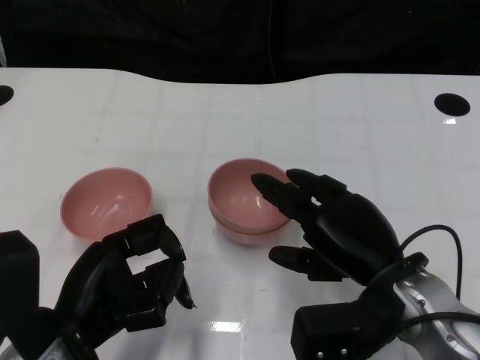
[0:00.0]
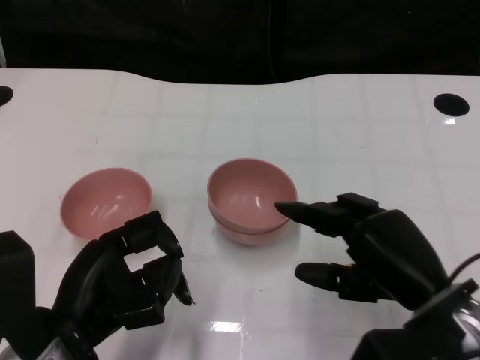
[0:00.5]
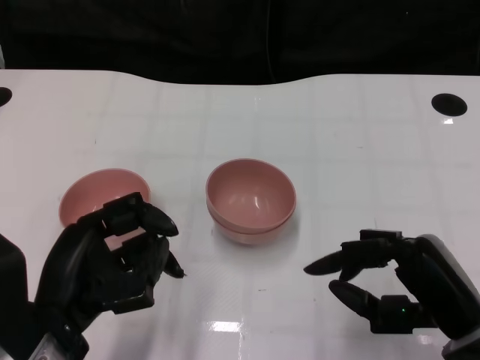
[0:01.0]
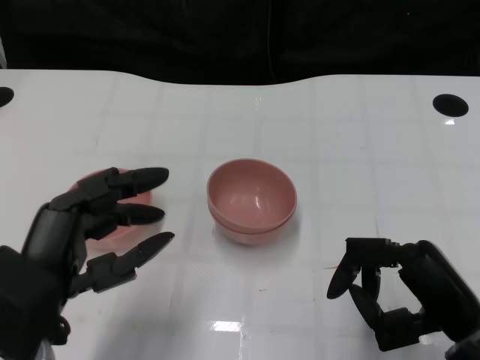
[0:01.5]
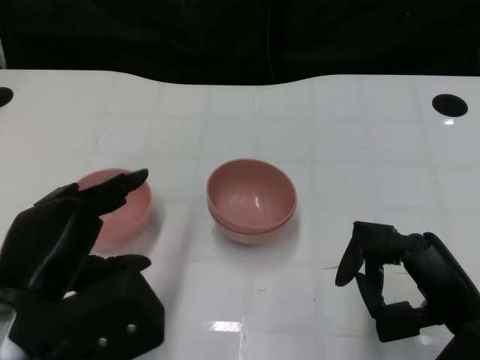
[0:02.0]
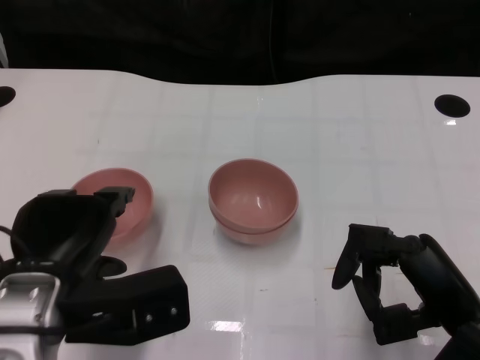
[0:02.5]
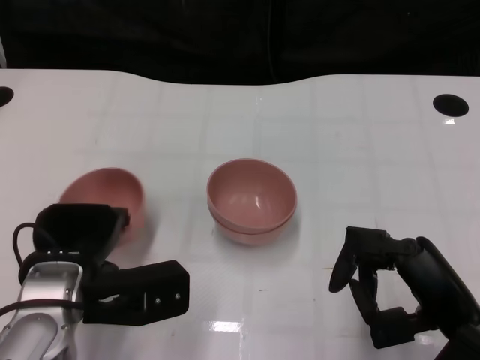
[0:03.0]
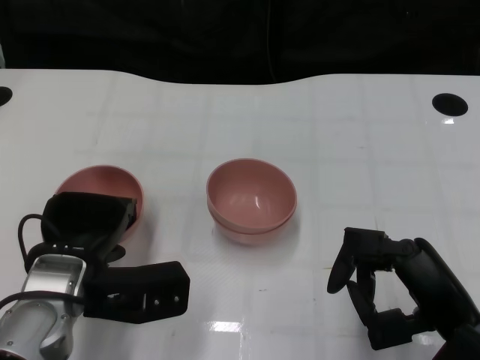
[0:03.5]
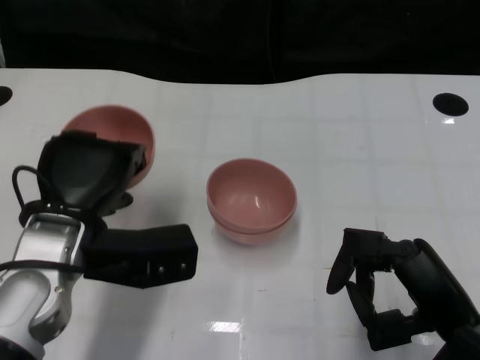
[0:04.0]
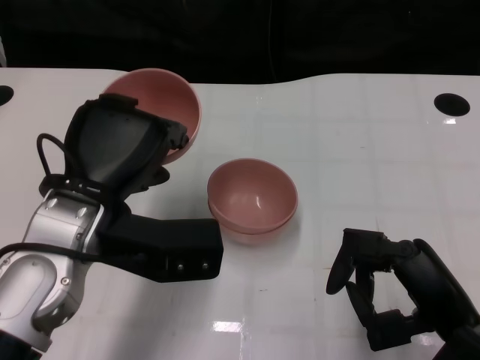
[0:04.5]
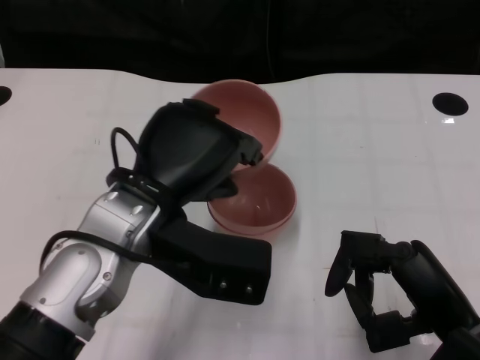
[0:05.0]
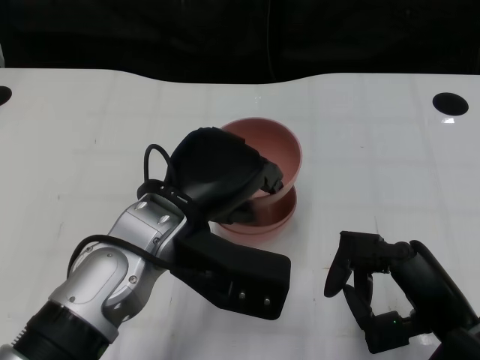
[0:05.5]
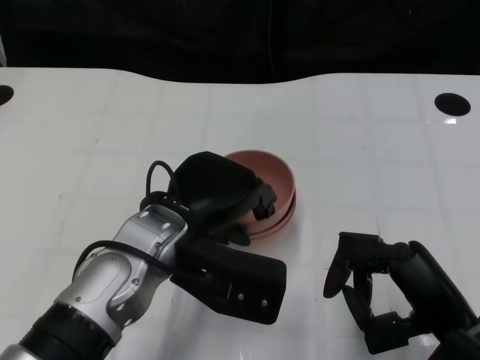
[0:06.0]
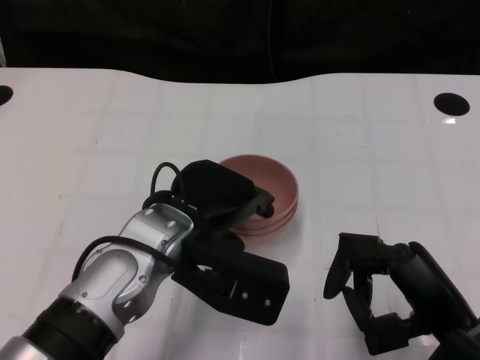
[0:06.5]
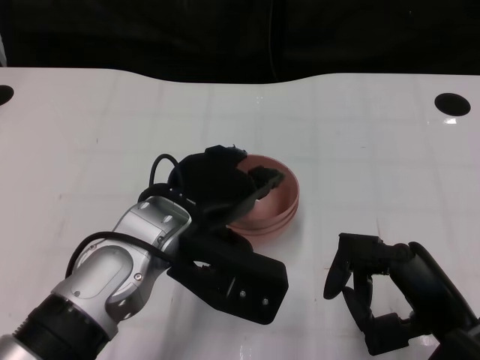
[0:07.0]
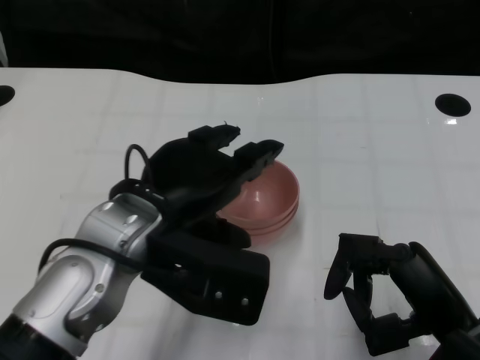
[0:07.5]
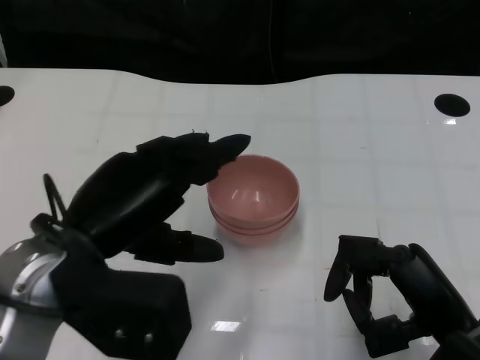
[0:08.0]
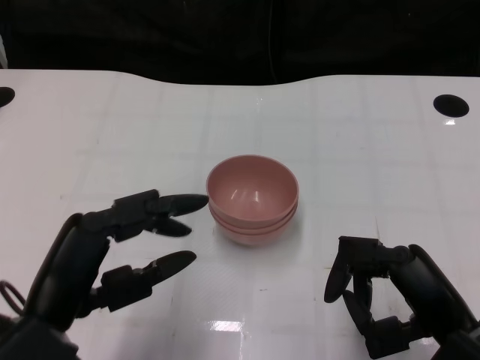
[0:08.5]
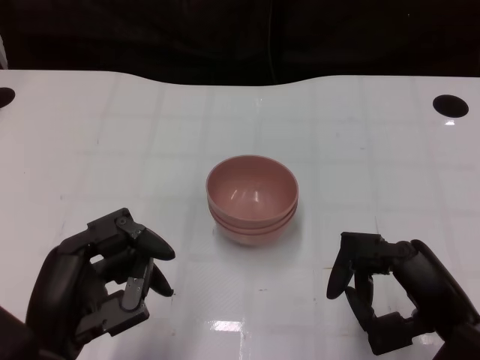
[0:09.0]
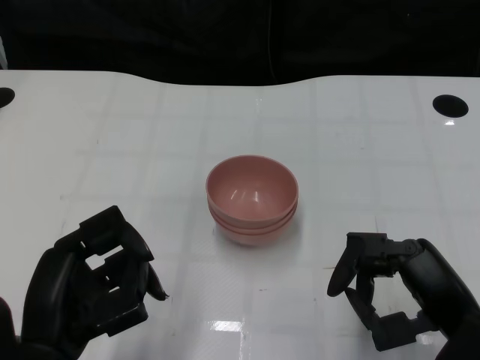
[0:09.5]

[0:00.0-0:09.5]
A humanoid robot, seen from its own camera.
Task of the whole recording: Pick up the bowl on one side of the table and place it on top of the middle bowl, then pick up the bowl on the other side of the table and place it on top of the middle bowls.
Step, 0:00.5 to 0:03.5: Grasp the bowl on the left with the left gripper.
Step, 0:04.0 to 0:07.5: Place the bowl on the left onto the bowl in the middle with left gripper.
0:00.0 to 0:02.0: The right hand is displaced to the right and backward by approximately 10 cm; the left hand shifts some 5 cm upward.
0:02.0 to 0:04.0: The left hand shifts some 10 cm forward.
0:04.0 to 0:05.5: The left hand is displaced to the right by approximately 10 cm.
0:05.5 to 0:07.5: There are only small adjustments of the hands.
0:07.5 to 0:09.5: The left hand shifts about 15 cm backward, to the left and downward.

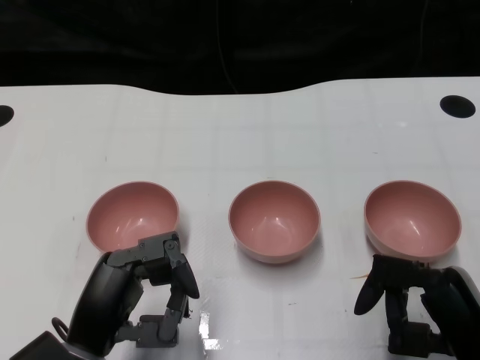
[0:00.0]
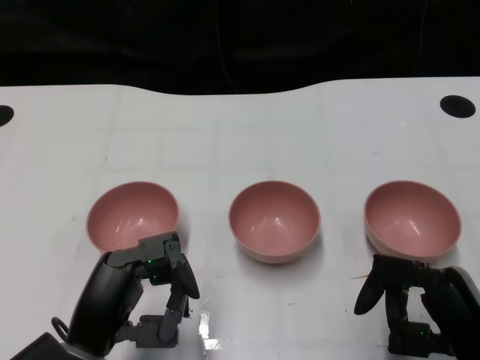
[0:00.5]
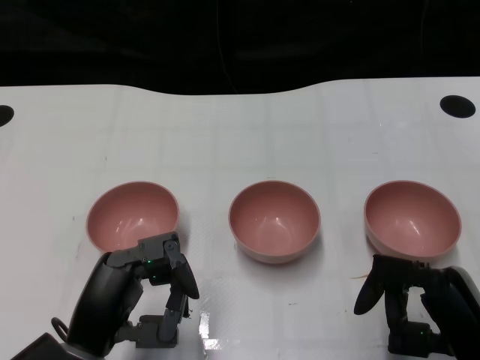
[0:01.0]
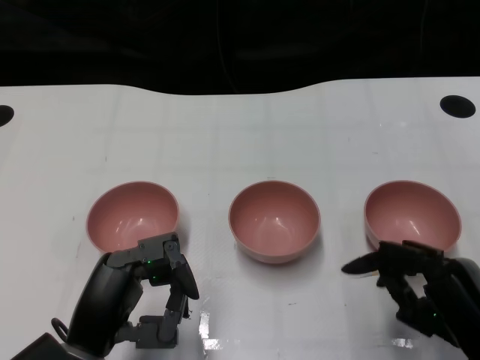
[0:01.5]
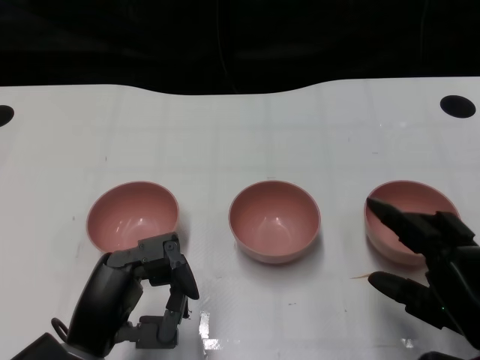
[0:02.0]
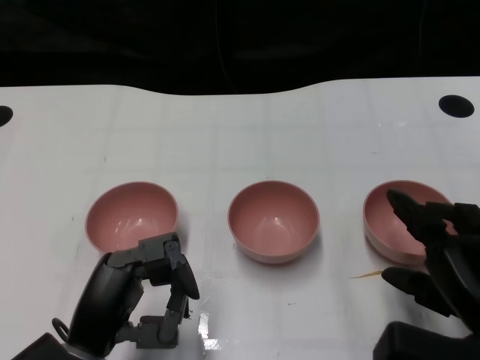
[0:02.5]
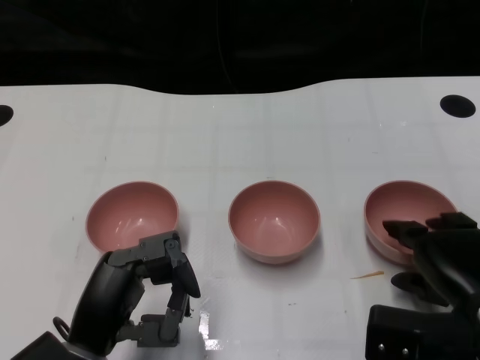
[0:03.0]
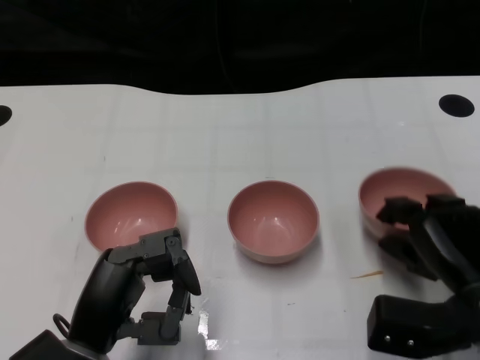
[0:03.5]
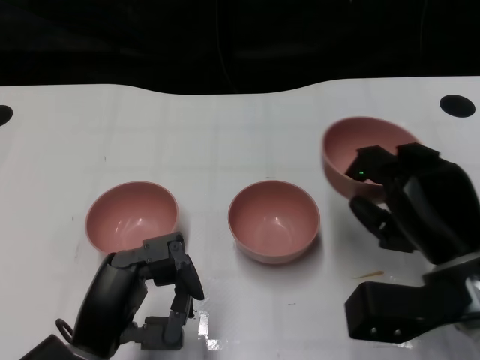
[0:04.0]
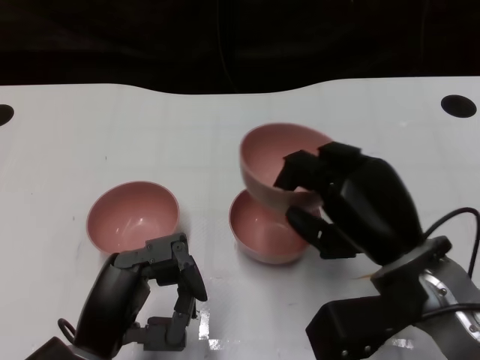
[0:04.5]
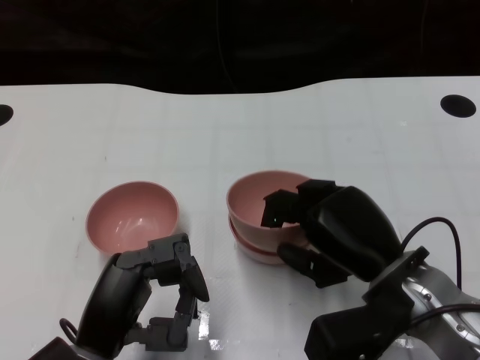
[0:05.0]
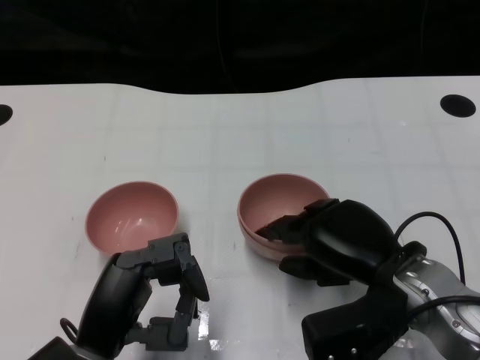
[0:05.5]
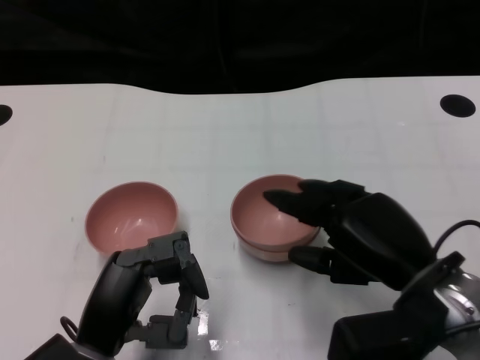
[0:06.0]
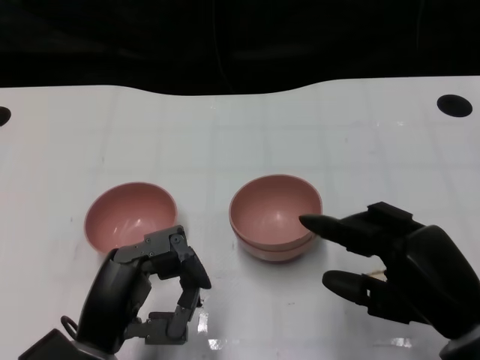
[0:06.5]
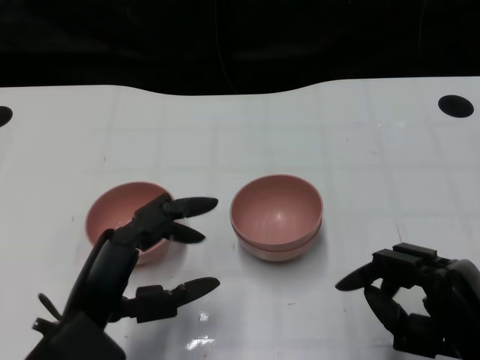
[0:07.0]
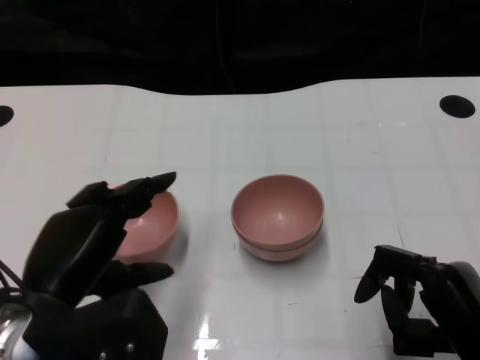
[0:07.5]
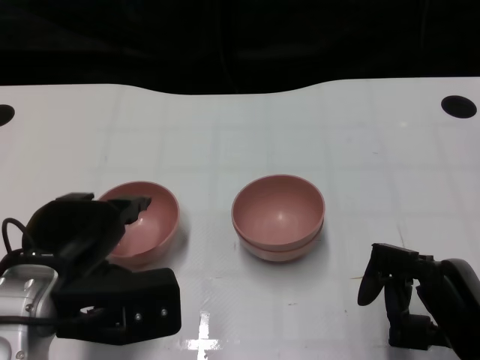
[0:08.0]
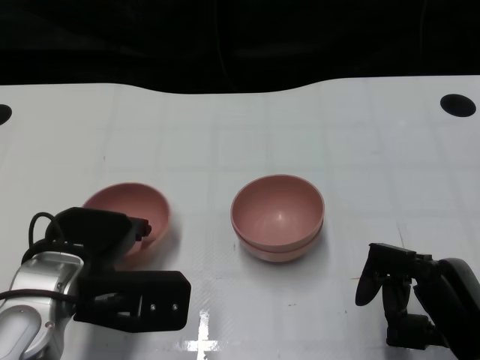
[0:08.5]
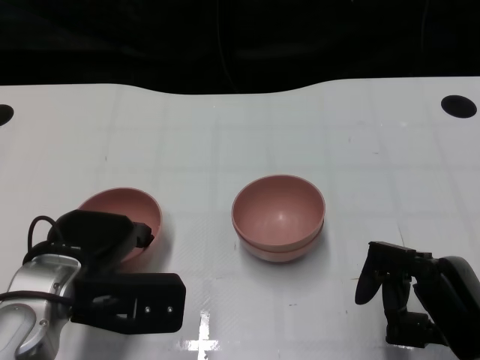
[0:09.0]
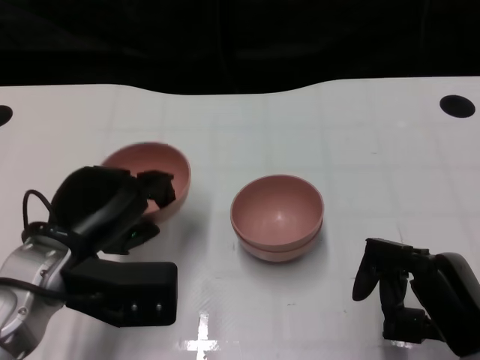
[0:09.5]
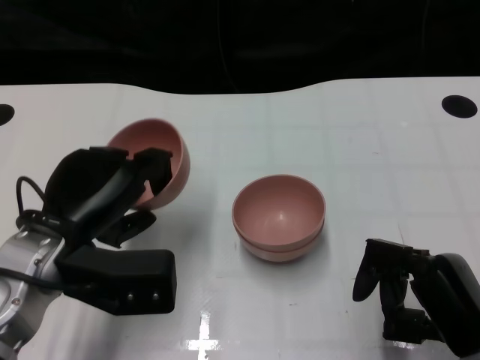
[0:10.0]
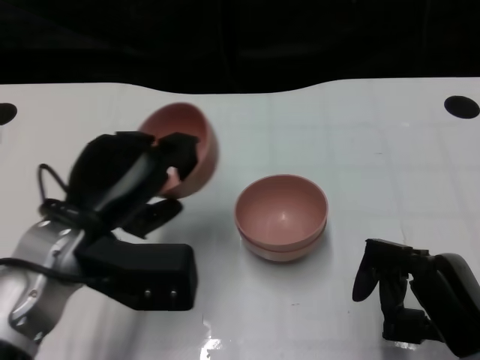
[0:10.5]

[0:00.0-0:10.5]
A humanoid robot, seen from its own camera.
Task of the whole recording: Pick up the bowl on one side of the table and place it on top of the middle bowl, then pick up the bowl on the other side of the table and place it on top of the middle bowls.
Step, 0:01.5 to 0:03.0: Grasp the bowl on the right with the right gripper.
Step, 0:03.5 to 0:06.0: Place the bowl on the right onto the bowl in the middle with right gripper.
Step, 0:06.5 to 0:09.0: Grasp the bowl on the left with the left gripper.
0:02.0 to 0:04.0: The right hand heads forward, covering some 5 cm.
0:04.0 to 0:06.5: The right hand travels backward by roughly 5 cm.
0:06.5 to 0:08.5: The left hand is displaced forward by roughly 5 cm.

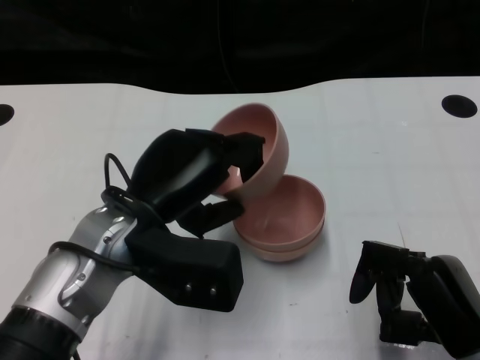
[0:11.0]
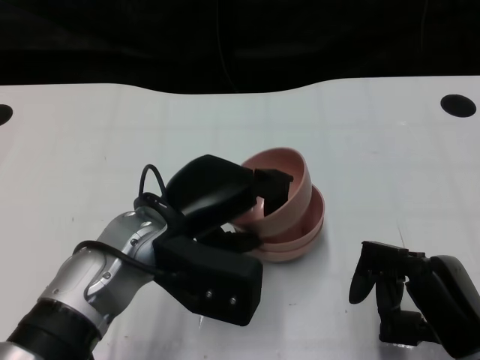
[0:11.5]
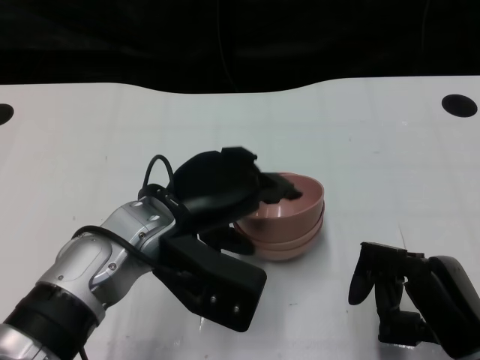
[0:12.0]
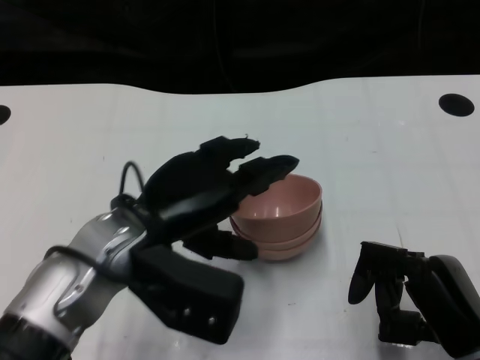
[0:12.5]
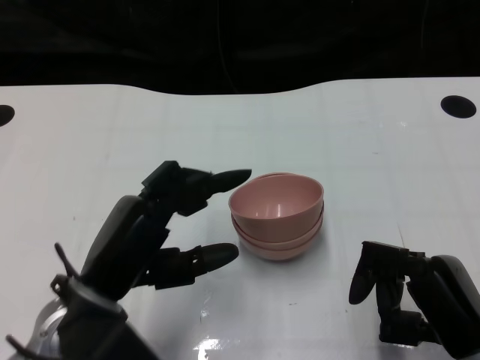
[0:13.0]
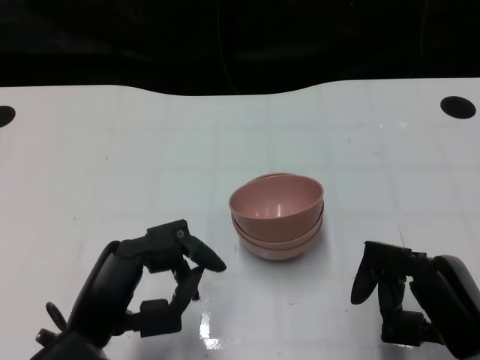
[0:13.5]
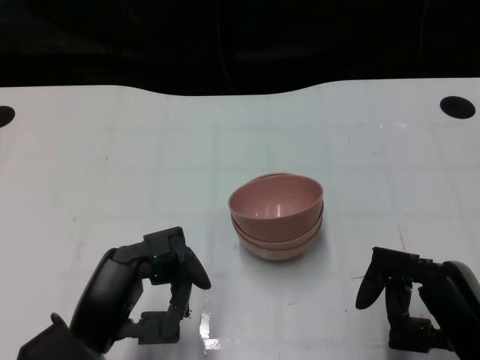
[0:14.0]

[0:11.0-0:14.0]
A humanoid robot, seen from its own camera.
Task of the whole recording: Pick up the bowl on one side of the table and place it on top of the middle bowl, then pick up the bowl on the other side of the table and place it on top of the middle bowls.
0:12.5 to 0:14.0: The left hand is displaced backward, downward and to the left by approximately 15 cm.

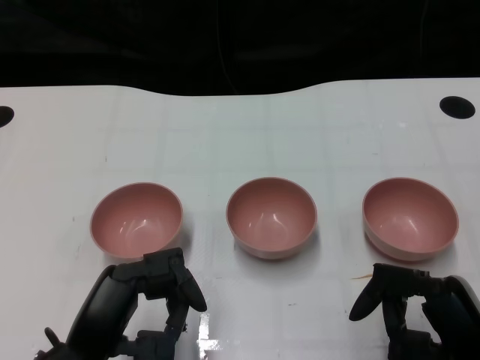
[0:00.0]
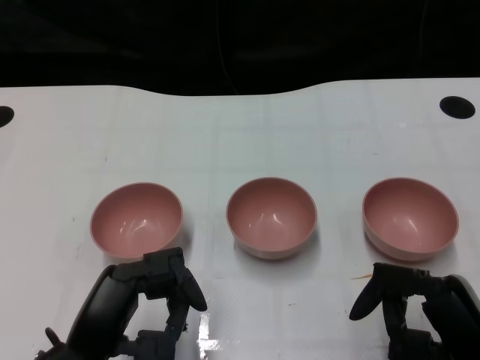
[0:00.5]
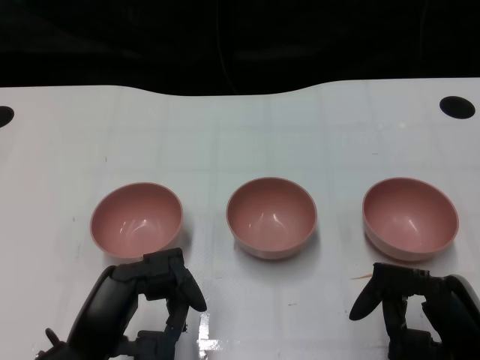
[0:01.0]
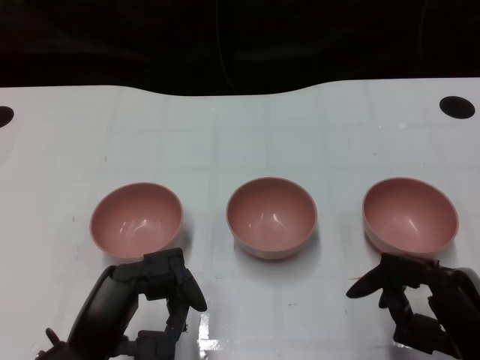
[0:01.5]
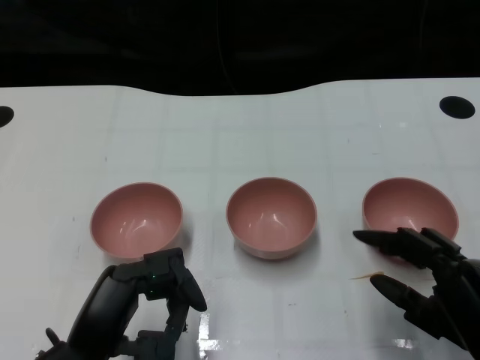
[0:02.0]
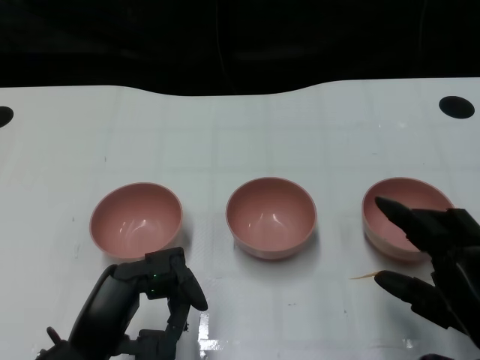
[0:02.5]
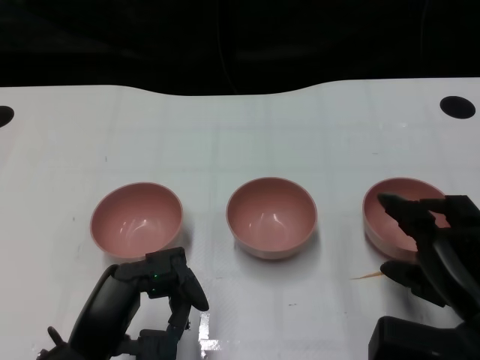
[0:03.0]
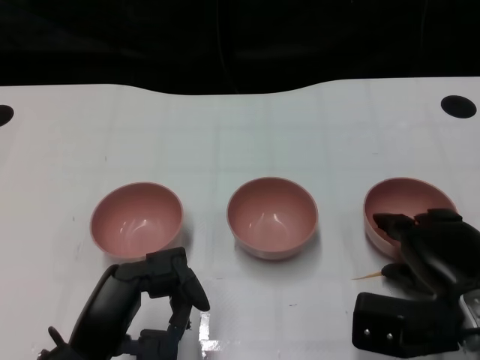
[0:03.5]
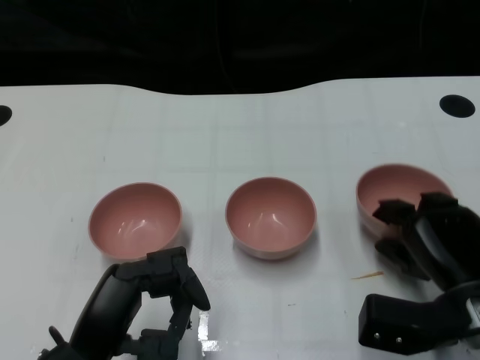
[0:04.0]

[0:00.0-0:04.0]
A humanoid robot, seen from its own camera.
Task of the whole recording: Pick up the bowl on one side of the table and place it on top of the middle bowl, then pick up the bowl on the other side of the table and place it on top of the middle bowls.
Step, 0:01.5 to 0:03.5: Grasp the bowl on the right with the right gripper.
0:02.0 to 0:04.0: The right hand shifts some 10 cm forward.
